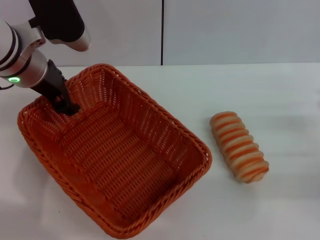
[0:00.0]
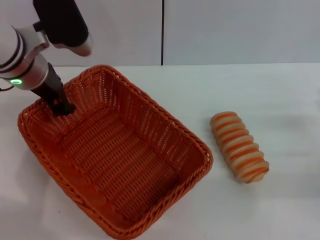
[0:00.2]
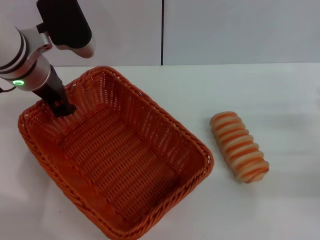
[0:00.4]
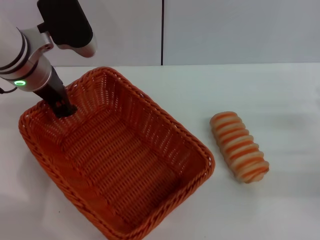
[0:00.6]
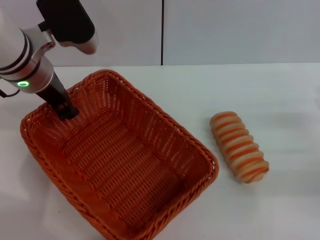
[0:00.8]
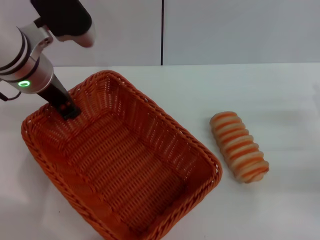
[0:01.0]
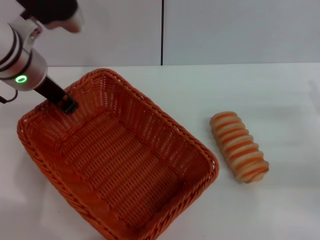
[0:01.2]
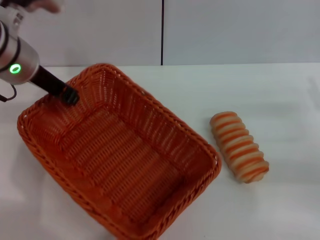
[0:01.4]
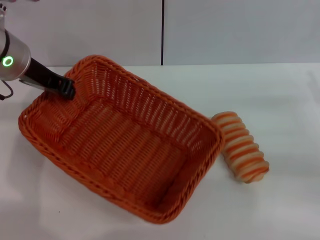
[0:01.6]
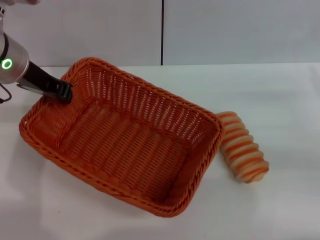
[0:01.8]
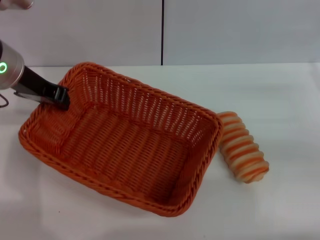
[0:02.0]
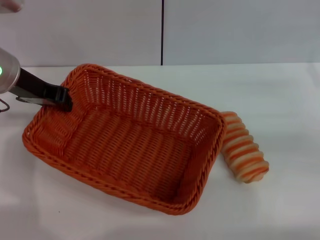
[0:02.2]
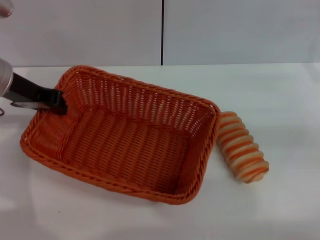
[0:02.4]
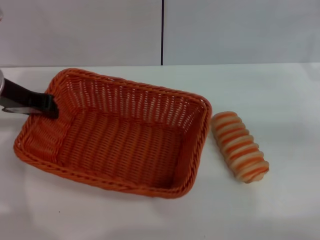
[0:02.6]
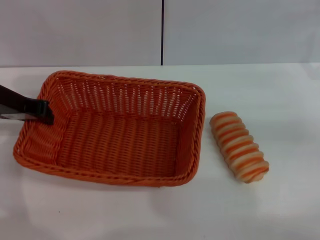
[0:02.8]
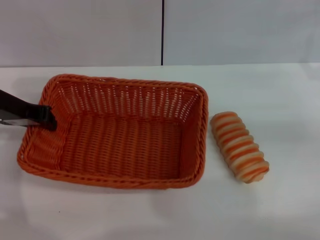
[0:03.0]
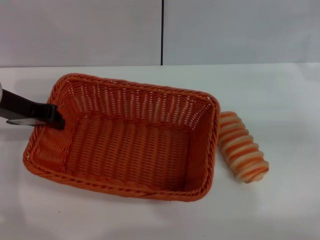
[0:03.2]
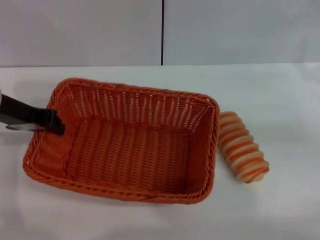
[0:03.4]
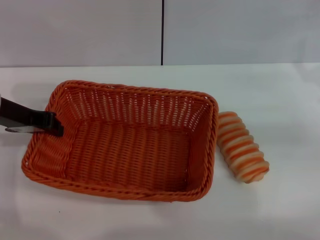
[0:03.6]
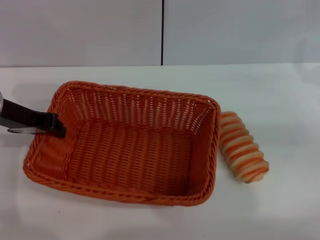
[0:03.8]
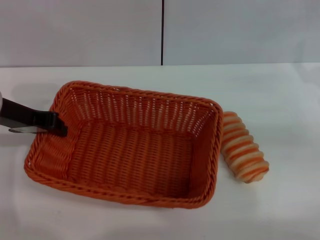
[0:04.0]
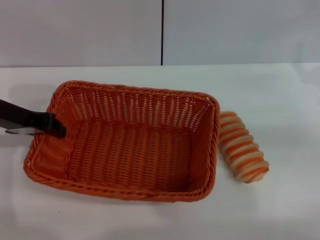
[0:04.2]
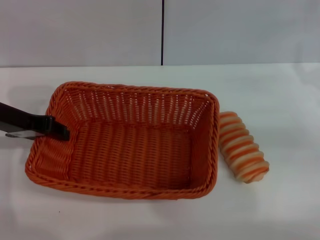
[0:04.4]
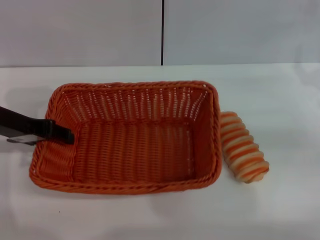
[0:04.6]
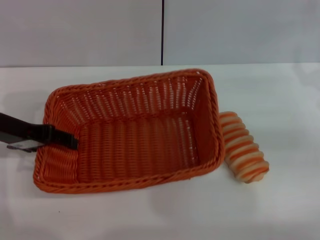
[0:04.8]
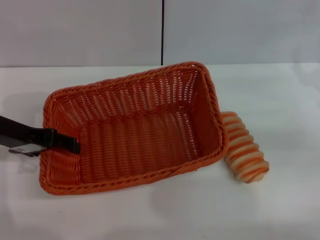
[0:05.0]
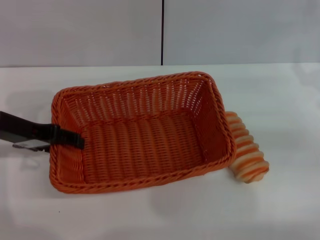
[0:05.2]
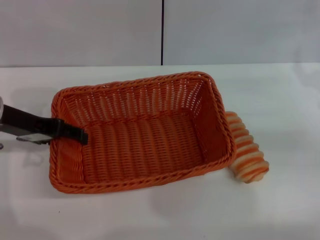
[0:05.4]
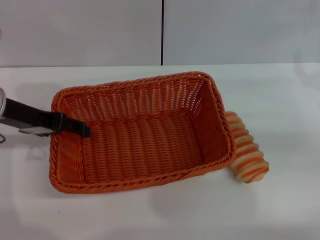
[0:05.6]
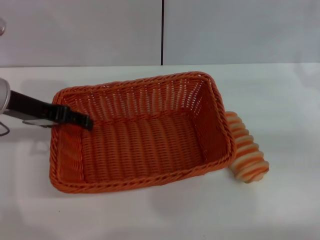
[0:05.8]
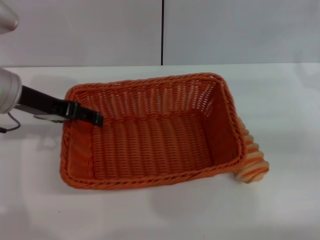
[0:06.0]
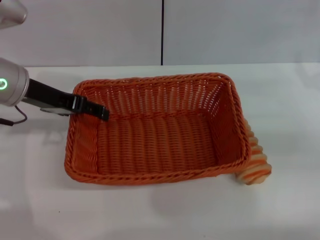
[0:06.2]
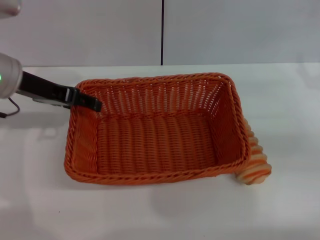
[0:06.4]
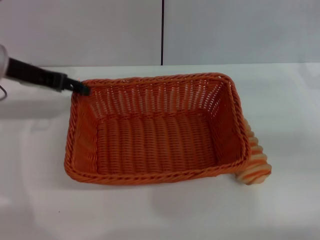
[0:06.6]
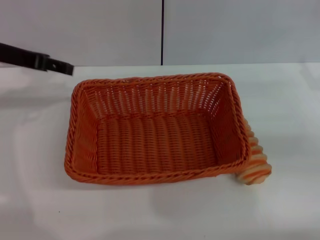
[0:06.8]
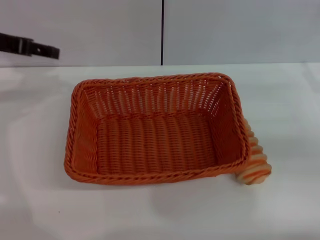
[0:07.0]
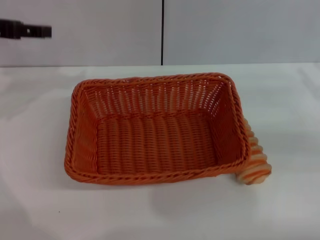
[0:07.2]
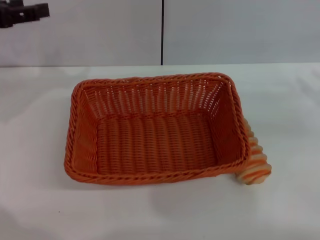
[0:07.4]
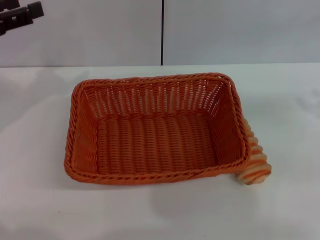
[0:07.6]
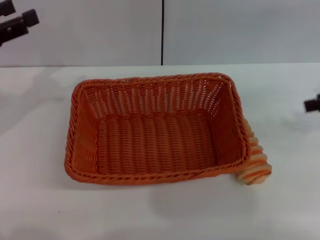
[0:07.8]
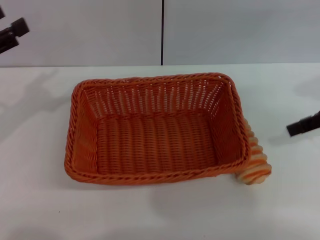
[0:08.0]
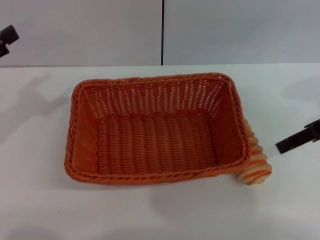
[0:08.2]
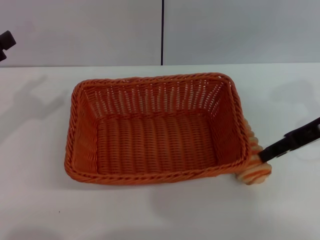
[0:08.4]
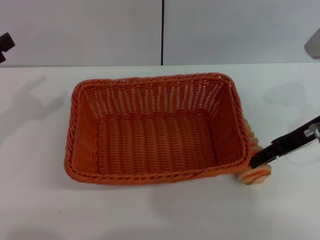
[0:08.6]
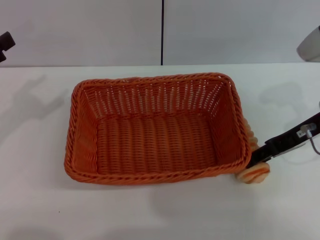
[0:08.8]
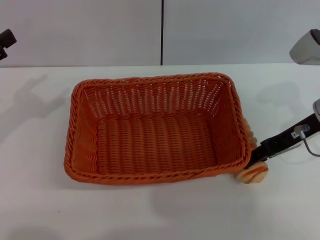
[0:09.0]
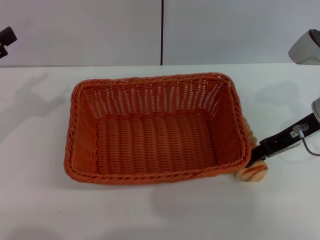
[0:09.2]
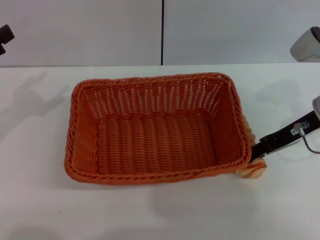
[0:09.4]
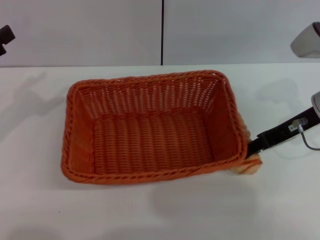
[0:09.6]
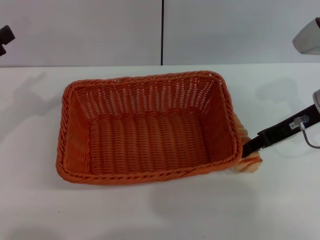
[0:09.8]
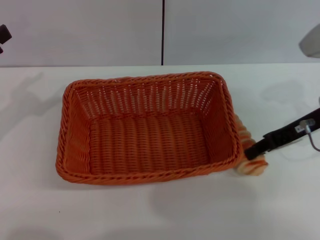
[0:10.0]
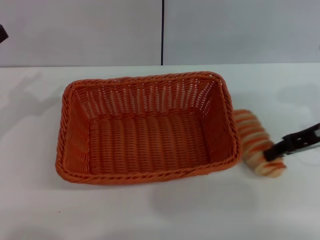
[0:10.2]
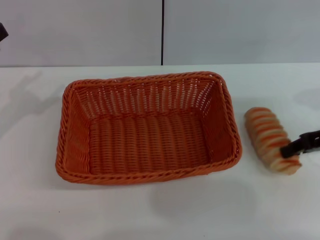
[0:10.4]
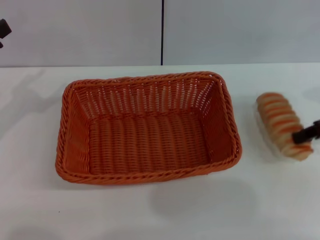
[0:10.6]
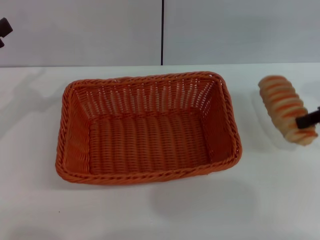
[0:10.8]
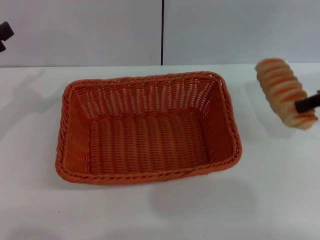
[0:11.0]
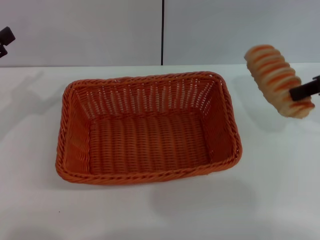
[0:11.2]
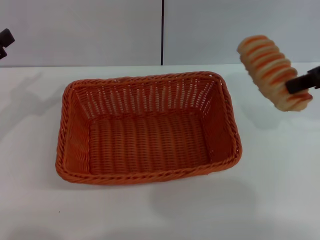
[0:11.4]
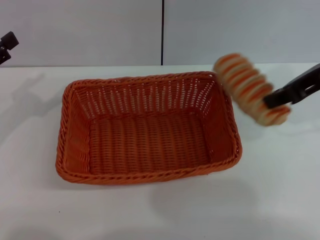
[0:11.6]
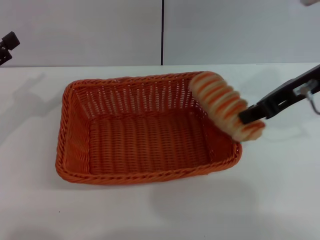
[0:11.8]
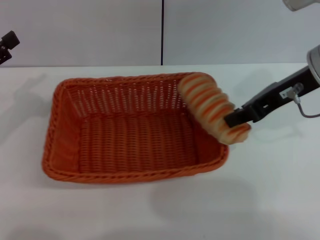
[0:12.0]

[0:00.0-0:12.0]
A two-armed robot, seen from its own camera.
Step, 0:01.8 to 0:06.6: Place the light basket in the center of view with the left gripper.
Step, 0:06.8 to 0:10.8: Pick up the long bread with the right gripper.
0:00.0 to 0:01.6: The right gripper shifts by roughly 5 cm. The left gripper closes its fingers.
0:01.6 to 0:03.0: The right gripper is displaced forward by approximately 5 cm. Meanwhile the left gripper moves roughly 5 cm.
0:03.0 to 0:04.4: There are only small adjustments of the grippers.
0:04.4 to 0:06.0: The left gripper opens its fingers.
0:06.0 to 0:07.6: The left gripper is displaced to the left by roughly 10 cm. The right gripper moves upward, some 10 cm.
0:07.6 to 0:09.0: The right gripper is displaced to the left and downward by about 15 cm; the left gripper goes some 10 cm backward and downward.
0:09.0 to 0:10.4: The right gripper travels to the right by about 5 cm, and closes up.
0:10.4 to 0:12.0: The right gripper is displaced to the left and upward by roughly 15 cm.

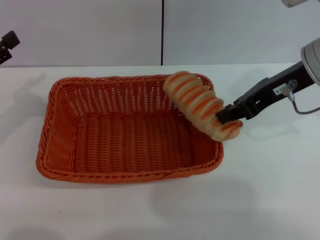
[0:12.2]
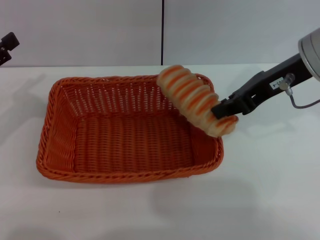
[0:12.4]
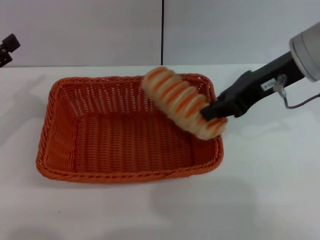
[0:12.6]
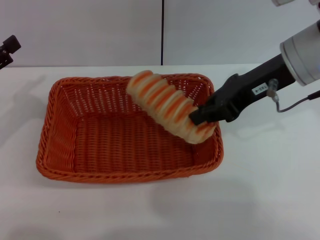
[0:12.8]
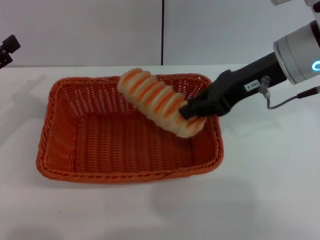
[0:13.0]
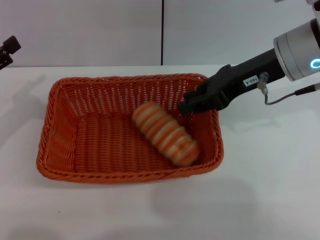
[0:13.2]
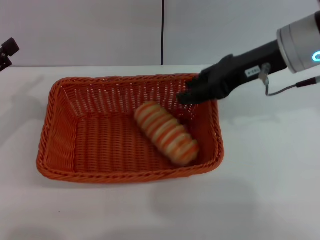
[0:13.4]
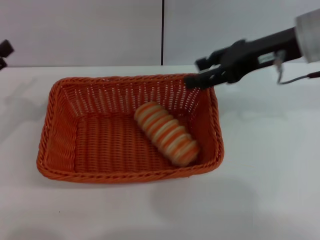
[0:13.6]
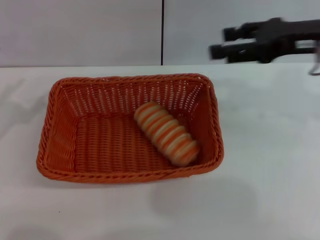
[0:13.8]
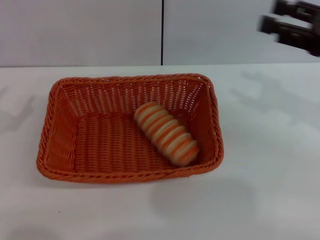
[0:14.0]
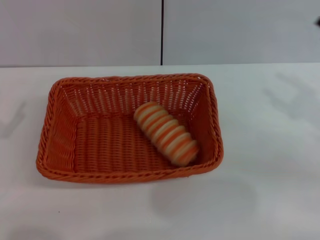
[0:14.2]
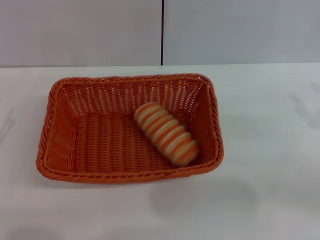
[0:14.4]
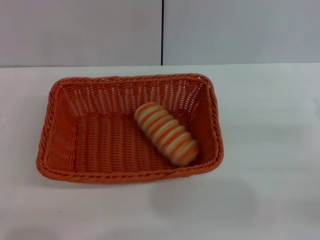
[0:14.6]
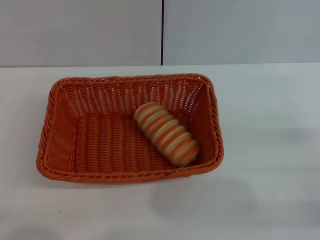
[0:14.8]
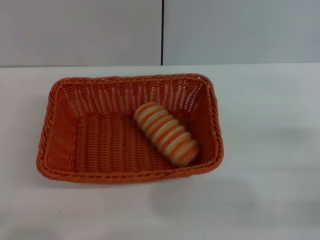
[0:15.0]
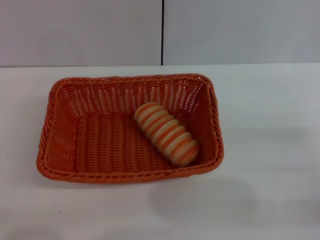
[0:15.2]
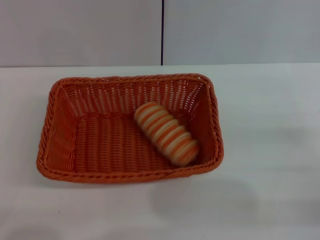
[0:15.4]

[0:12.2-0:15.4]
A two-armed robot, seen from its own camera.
0:12.2 to 0:13.8: The right gripper opens its fingers.
0:13.8 to 0:15.4: The right gripper heads downward, backward and to the right, covering about 25 cm.
